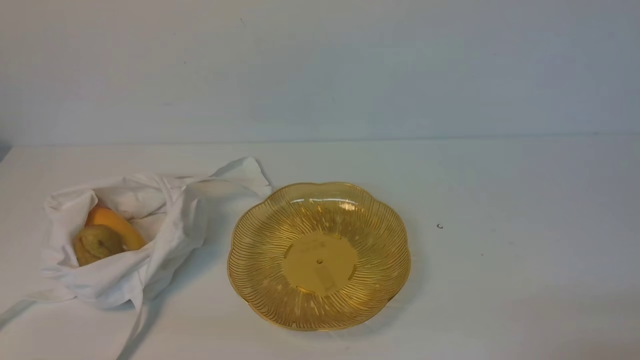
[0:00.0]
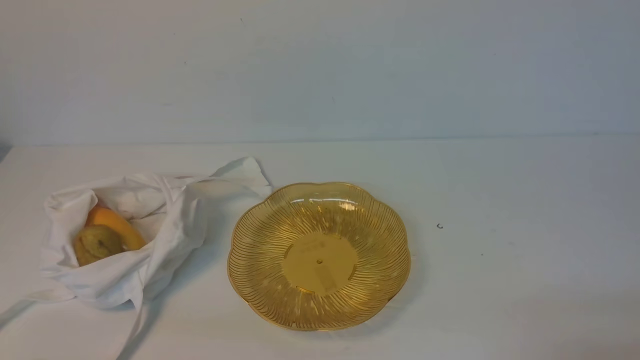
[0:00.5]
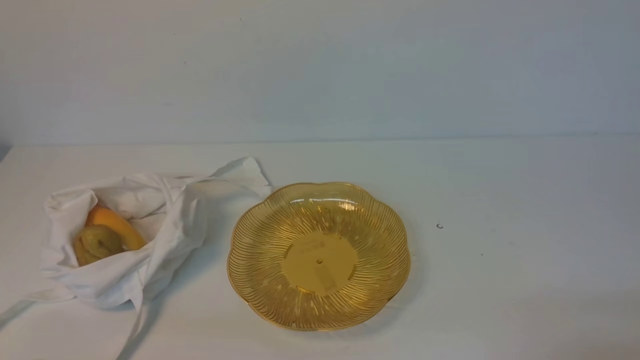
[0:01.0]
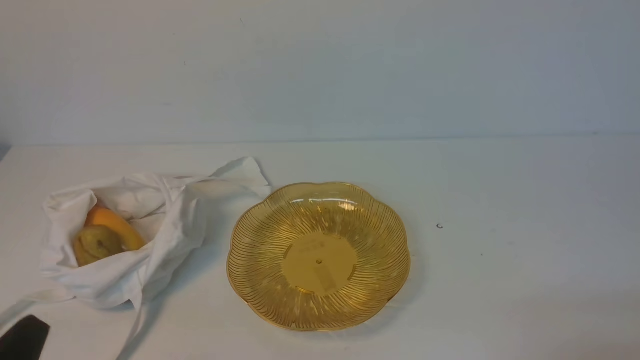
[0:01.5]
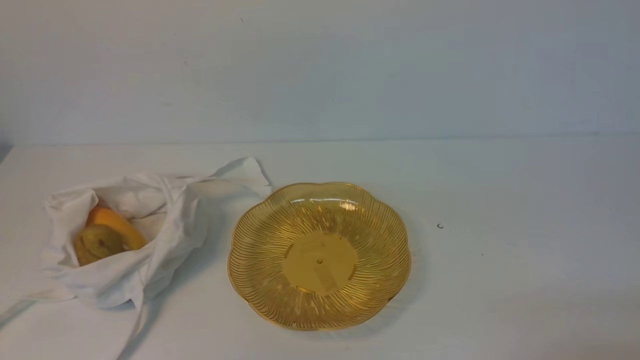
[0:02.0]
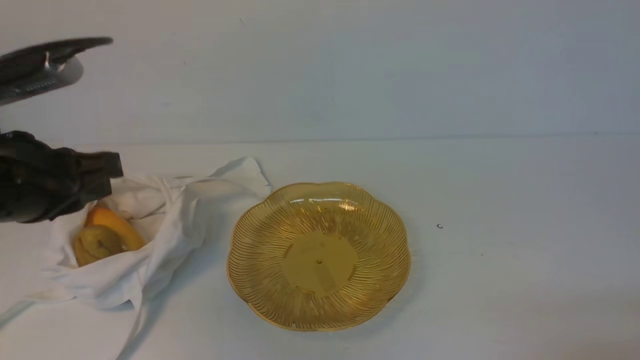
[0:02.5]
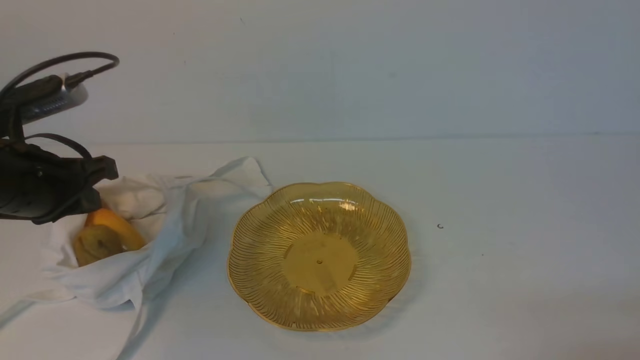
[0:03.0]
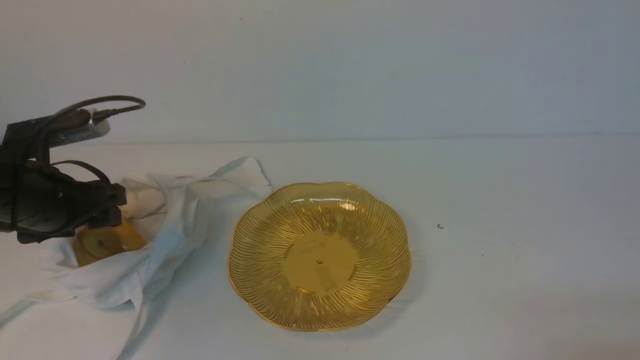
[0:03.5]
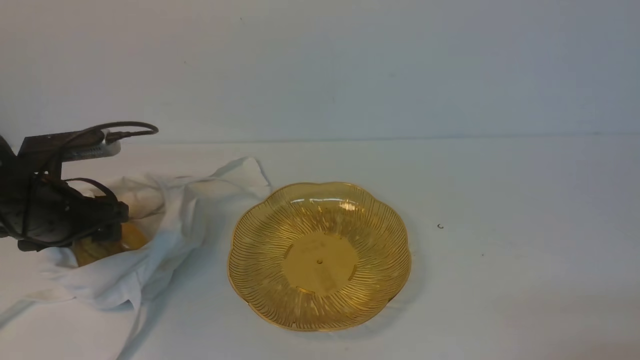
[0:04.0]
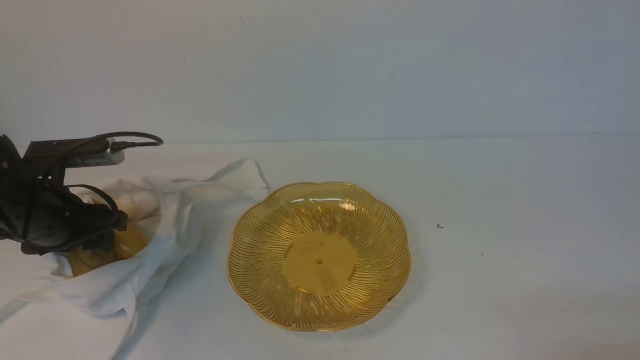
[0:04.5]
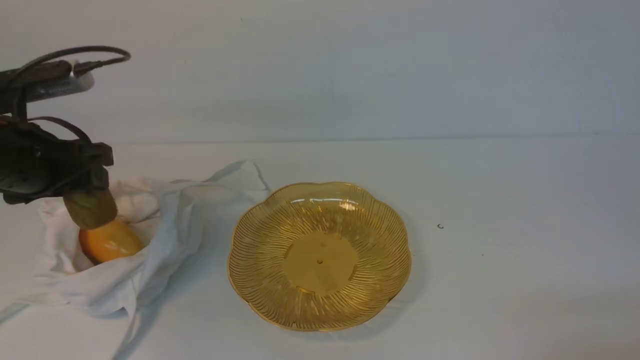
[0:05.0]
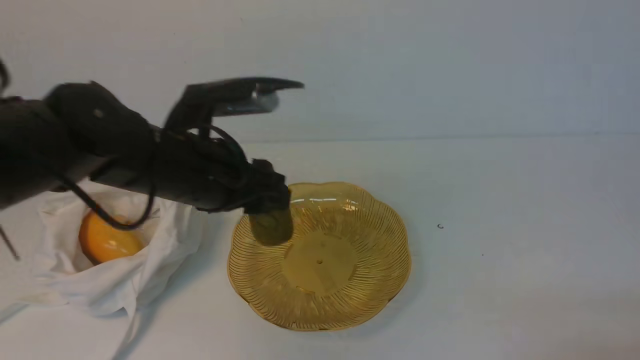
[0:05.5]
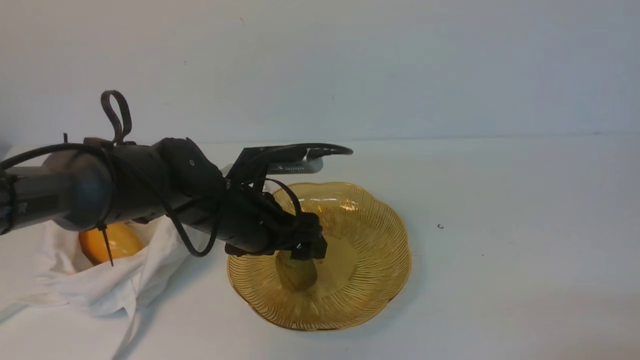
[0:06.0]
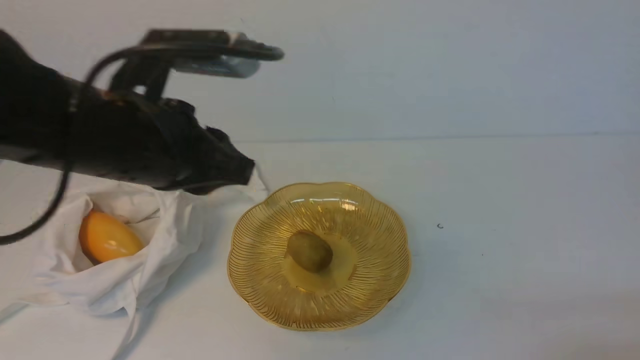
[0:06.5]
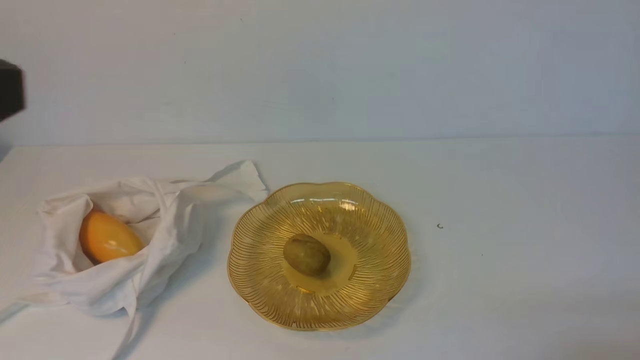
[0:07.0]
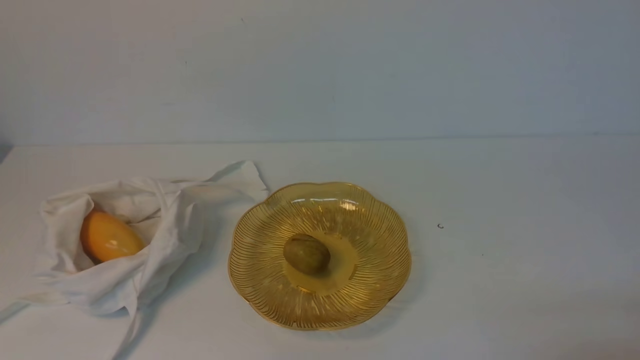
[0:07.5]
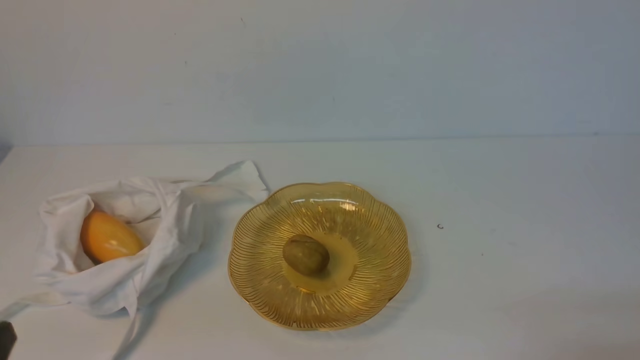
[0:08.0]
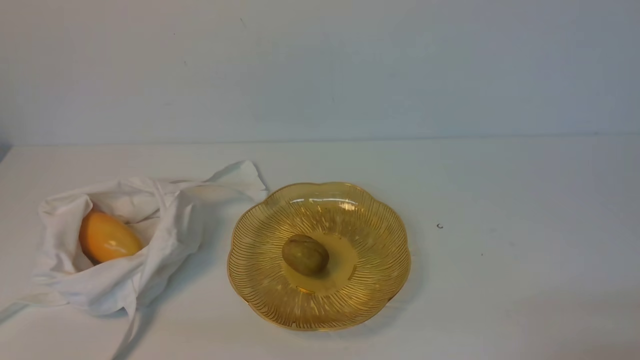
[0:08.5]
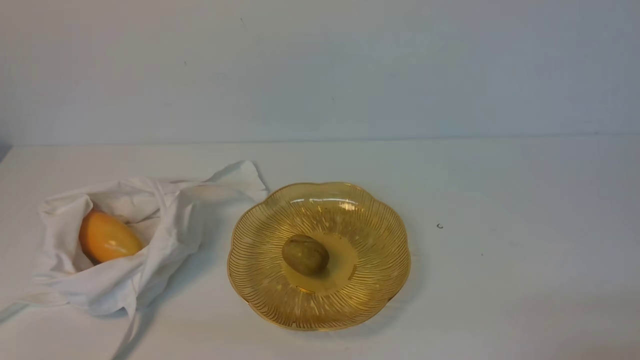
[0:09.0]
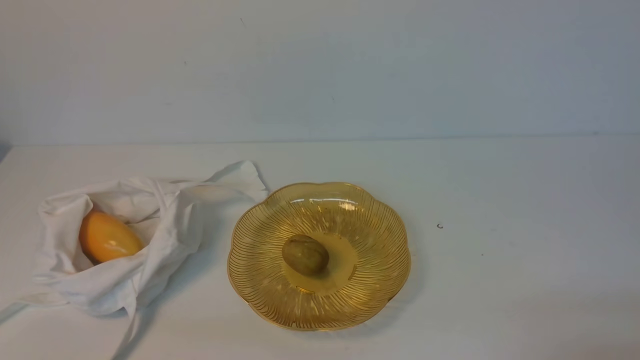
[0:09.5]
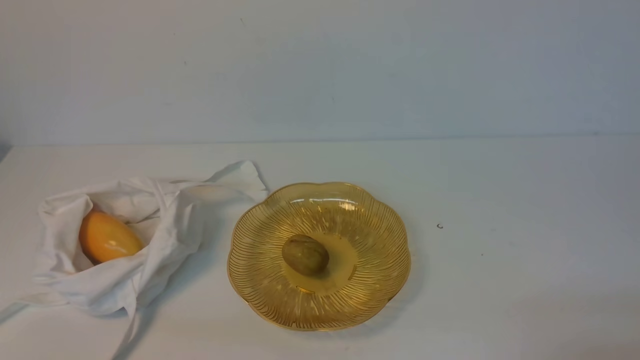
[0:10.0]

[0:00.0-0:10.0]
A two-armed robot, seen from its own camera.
Step, 0:00.0 to 0:04.5: use the left arm to grab a kiwi from the bag.
Step, 0:05.0 to 0:06.0: use the left arm to put the kiwi into the empty plate on the right.
0:02.0 to 0:04.0: The left gripper moves forward, approximately 25 cm, and opens up.
0:04.0 to 0:06.0: The left gripper shifts approximately 20 cm to the right.
0:06.0 to 0:08.0: The left gripper is displaced backward and to the left by approximately 30 cm, and closes.
